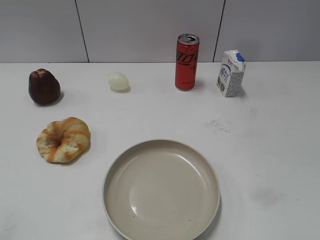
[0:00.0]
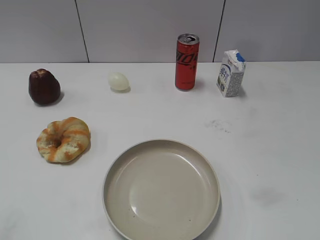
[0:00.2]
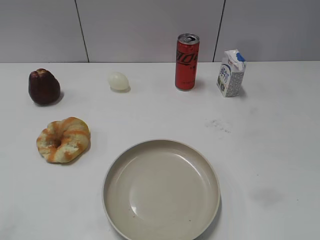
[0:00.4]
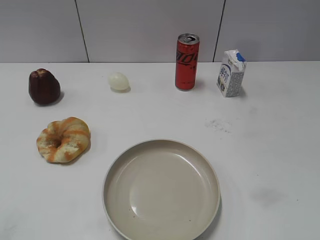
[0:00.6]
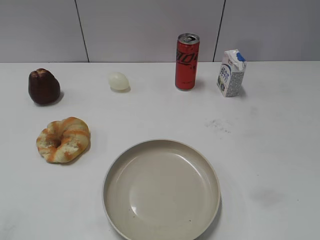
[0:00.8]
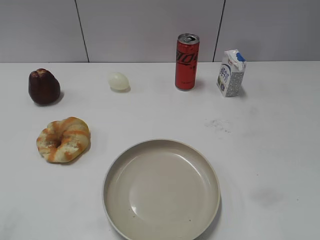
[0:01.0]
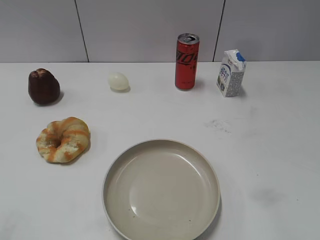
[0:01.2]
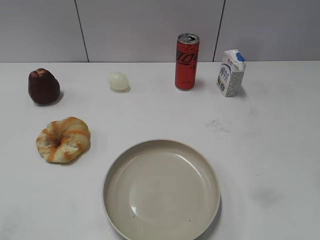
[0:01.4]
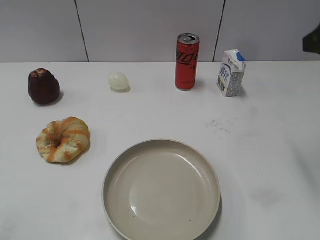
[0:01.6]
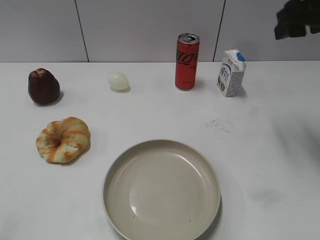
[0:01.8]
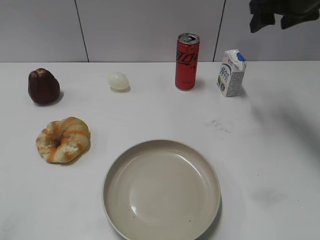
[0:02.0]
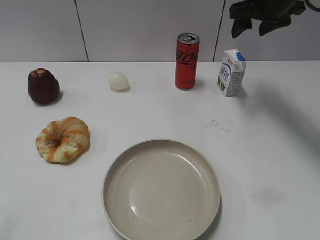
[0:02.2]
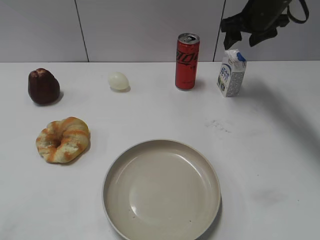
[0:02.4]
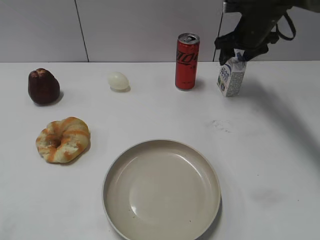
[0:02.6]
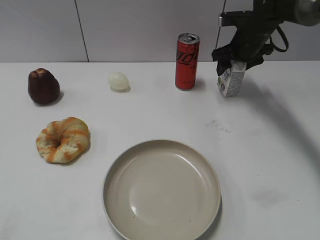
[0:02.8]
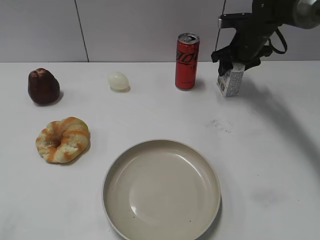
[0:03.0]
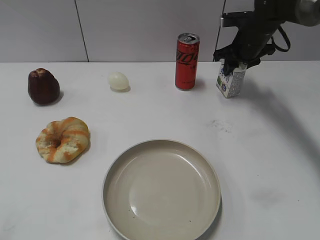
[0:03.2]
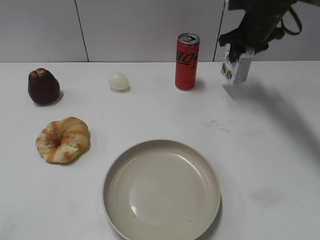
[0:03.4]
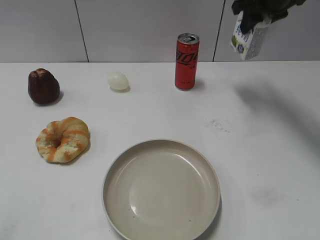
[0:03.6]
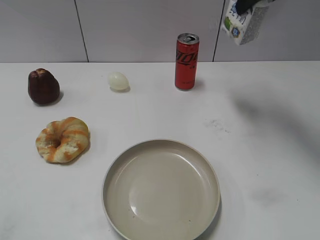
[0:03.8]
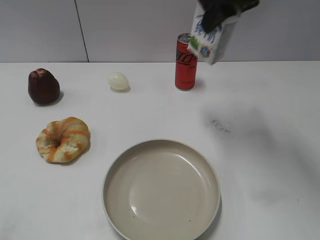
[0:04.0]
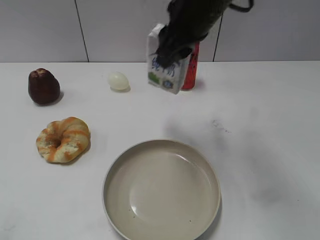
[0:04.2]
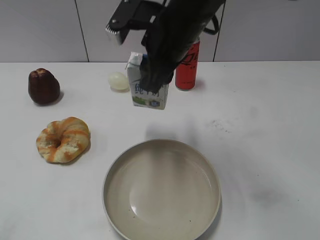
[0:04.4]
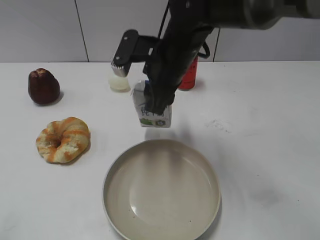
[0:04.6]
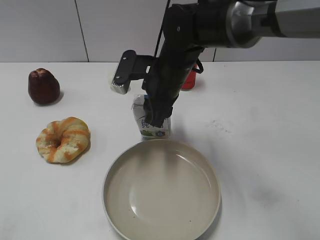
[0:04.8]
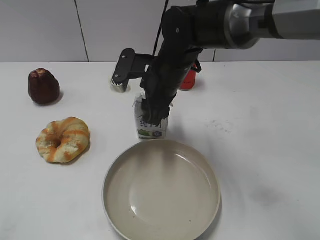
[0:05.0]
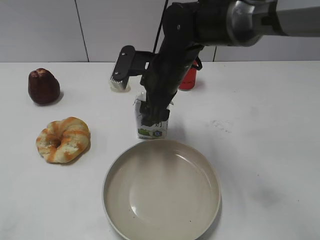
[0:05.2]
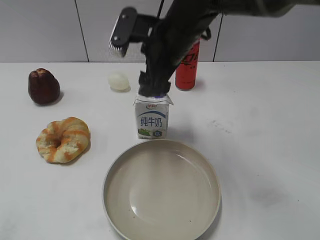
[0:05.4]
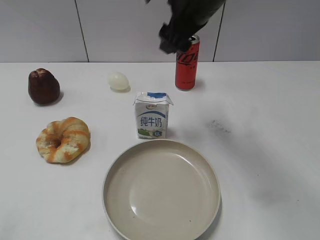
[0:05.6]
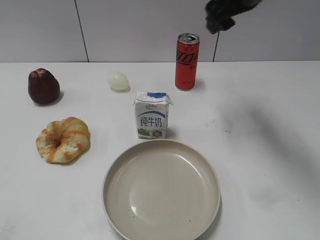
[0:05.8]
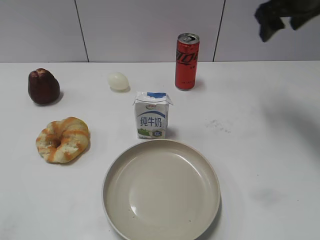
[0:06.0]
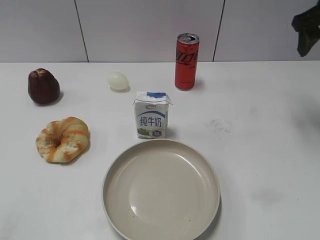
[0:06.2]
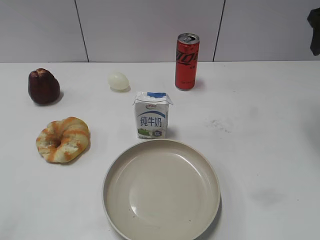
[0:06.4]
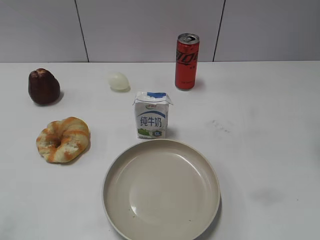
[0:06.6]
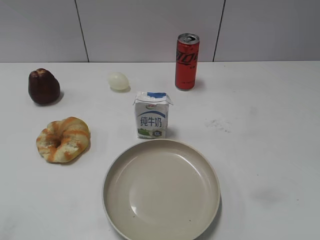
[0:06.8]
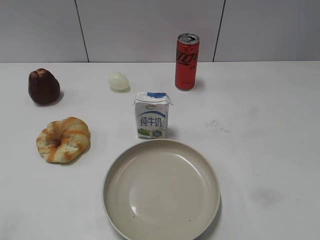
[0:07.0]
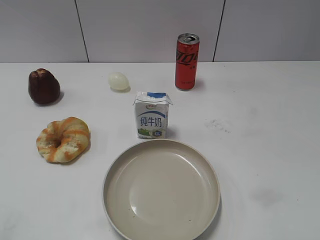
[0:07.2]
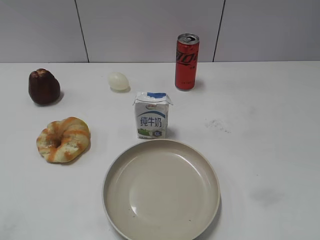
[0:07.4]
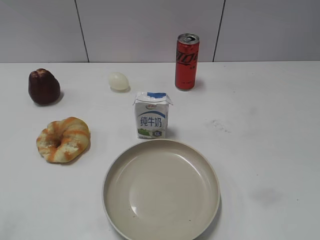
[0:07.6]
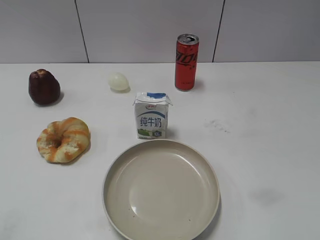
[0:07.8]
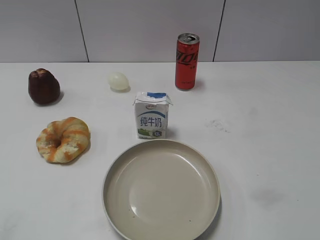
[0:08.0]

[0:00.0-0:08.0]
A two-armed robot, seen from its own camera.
Step, 0:01.0 to 0:03.2: Grasp the milk with right gripper.
Step, 0:03.6 to 0:05.2: Place the milk on the table with right gripper.
0:01.6 to 0:03.2: The right gripper is displaced forward and downward by about 30 cm, and closes its fingers.
0:03.2 to 0:04.8: The right gripper travels to the left and backward by about 25 cm.
0:04.8 to 0:06.4: The right gripper shifts about 30 cm to the right and upward, and opens.
